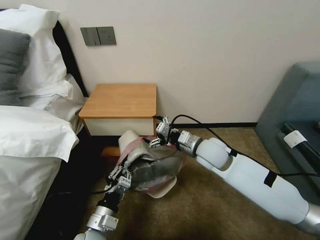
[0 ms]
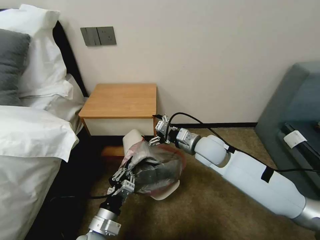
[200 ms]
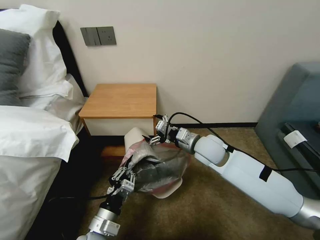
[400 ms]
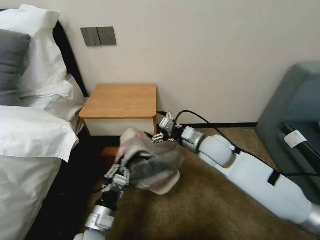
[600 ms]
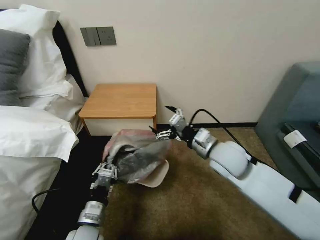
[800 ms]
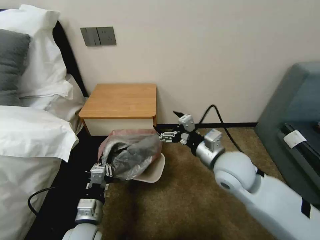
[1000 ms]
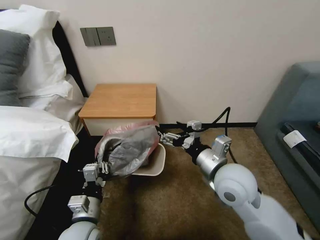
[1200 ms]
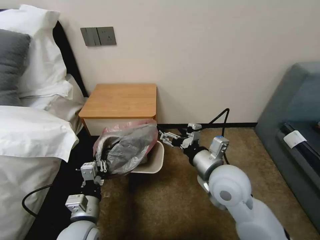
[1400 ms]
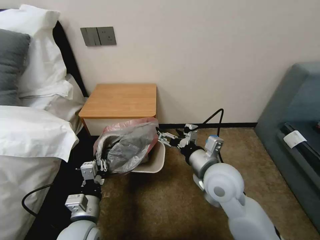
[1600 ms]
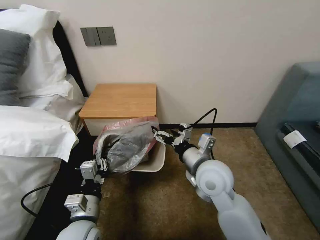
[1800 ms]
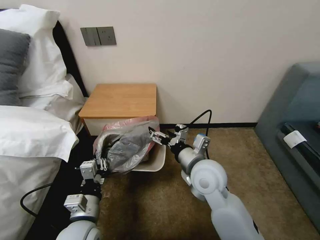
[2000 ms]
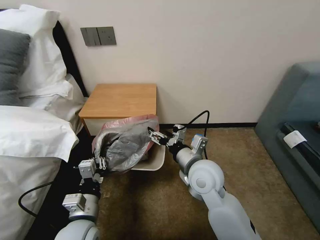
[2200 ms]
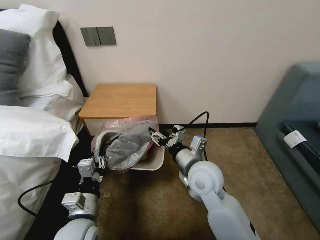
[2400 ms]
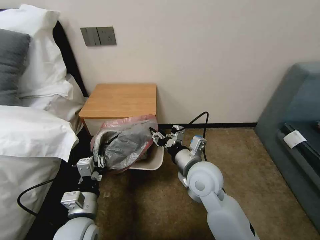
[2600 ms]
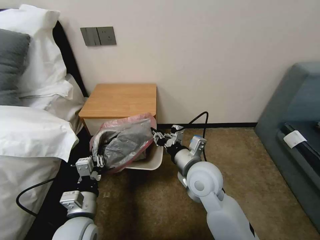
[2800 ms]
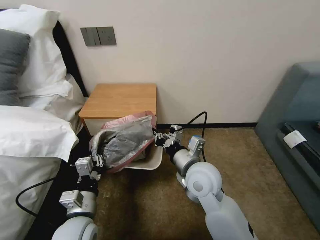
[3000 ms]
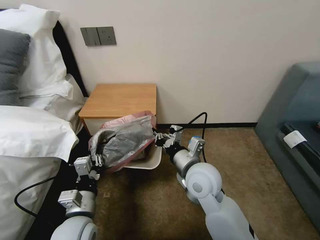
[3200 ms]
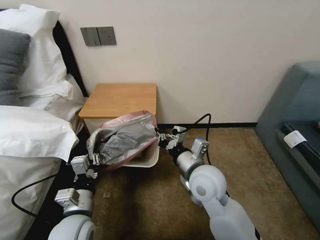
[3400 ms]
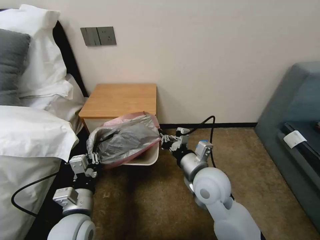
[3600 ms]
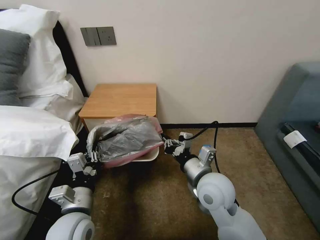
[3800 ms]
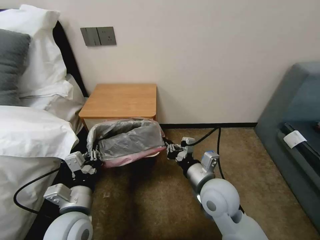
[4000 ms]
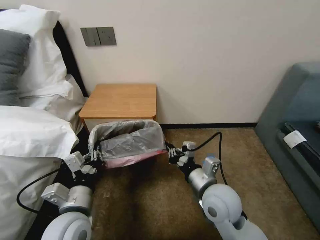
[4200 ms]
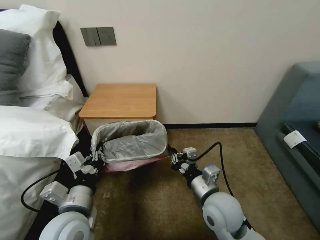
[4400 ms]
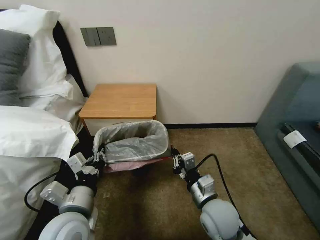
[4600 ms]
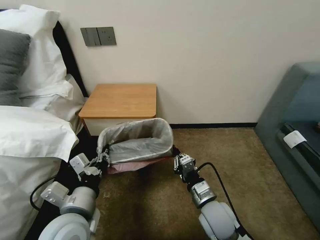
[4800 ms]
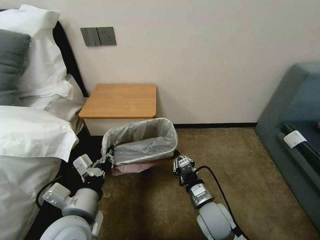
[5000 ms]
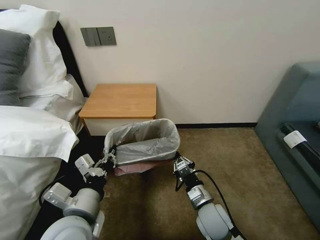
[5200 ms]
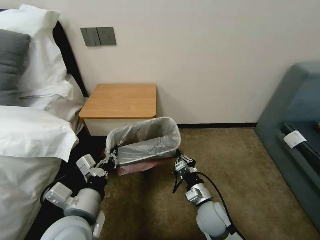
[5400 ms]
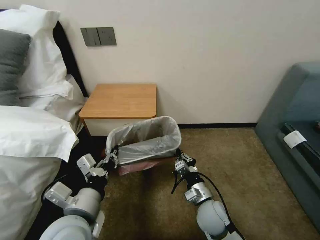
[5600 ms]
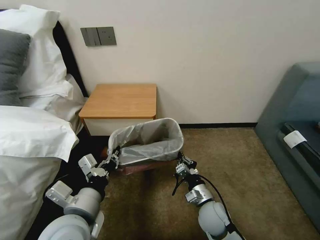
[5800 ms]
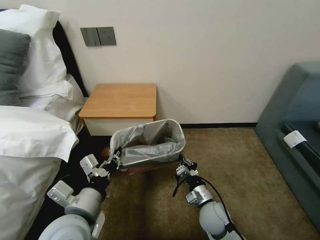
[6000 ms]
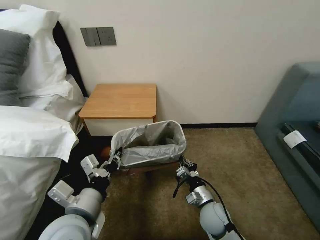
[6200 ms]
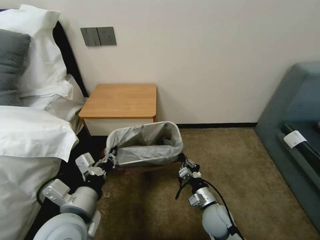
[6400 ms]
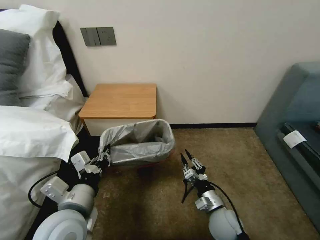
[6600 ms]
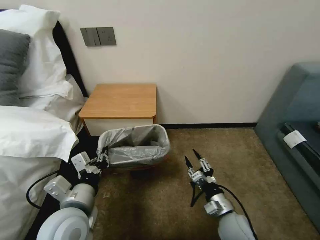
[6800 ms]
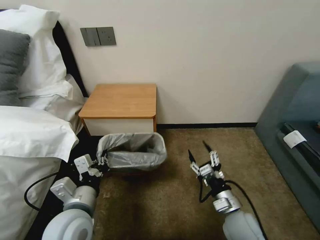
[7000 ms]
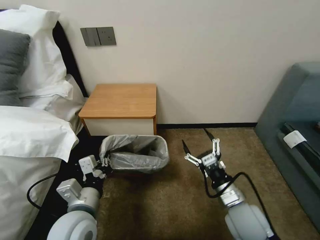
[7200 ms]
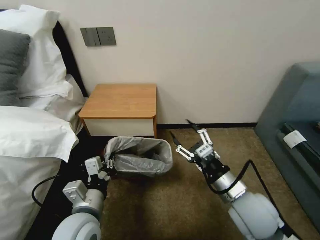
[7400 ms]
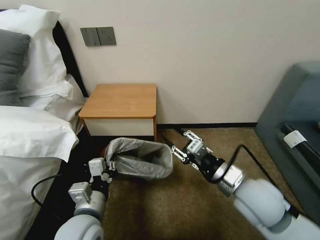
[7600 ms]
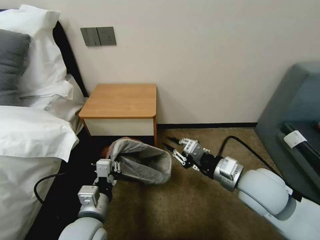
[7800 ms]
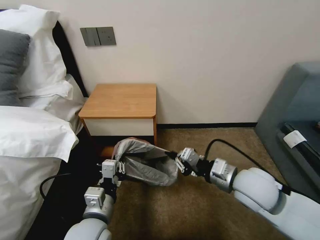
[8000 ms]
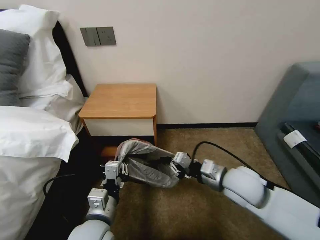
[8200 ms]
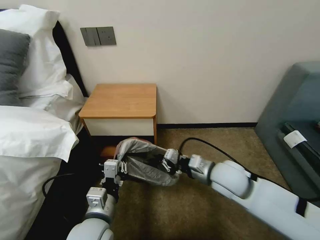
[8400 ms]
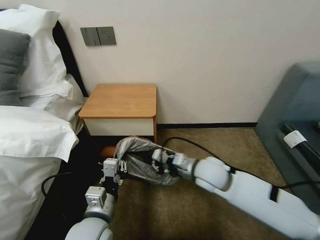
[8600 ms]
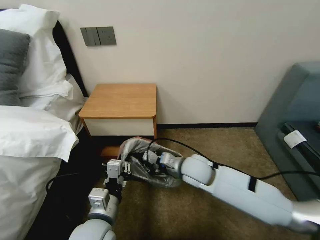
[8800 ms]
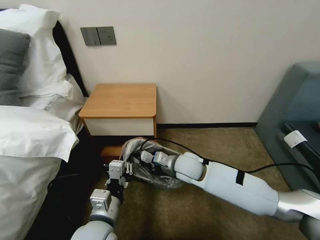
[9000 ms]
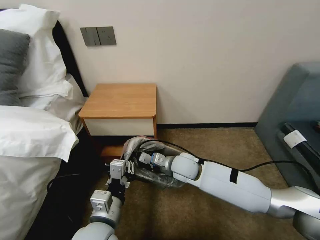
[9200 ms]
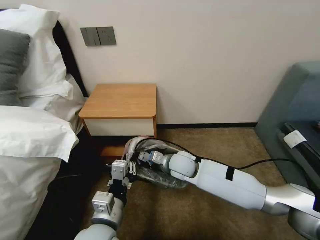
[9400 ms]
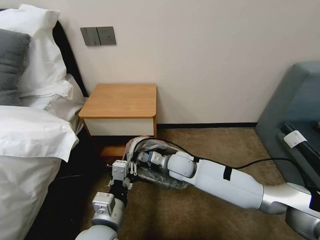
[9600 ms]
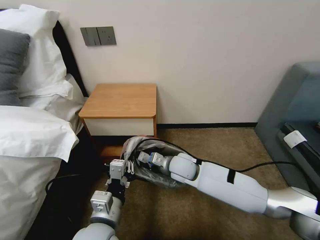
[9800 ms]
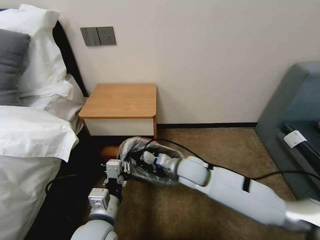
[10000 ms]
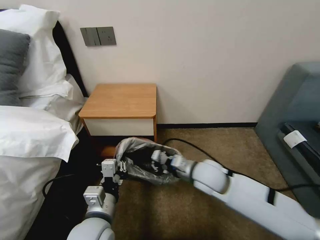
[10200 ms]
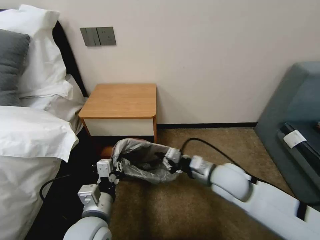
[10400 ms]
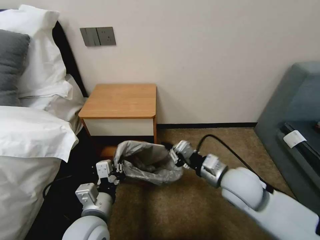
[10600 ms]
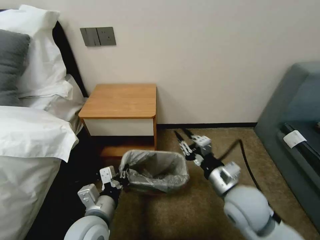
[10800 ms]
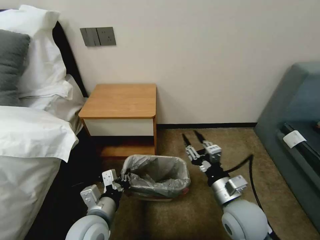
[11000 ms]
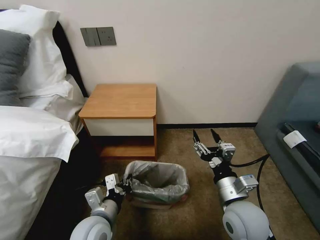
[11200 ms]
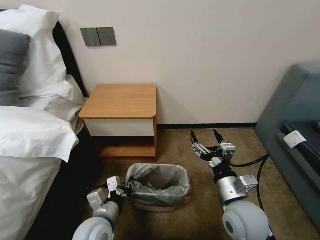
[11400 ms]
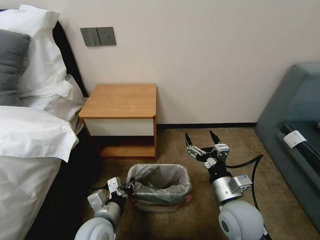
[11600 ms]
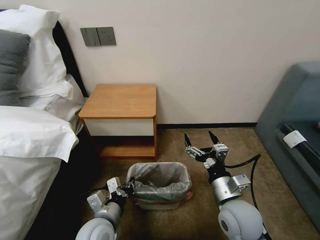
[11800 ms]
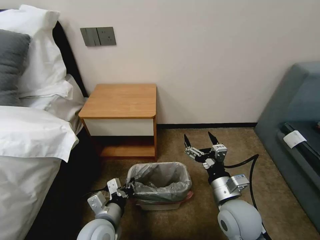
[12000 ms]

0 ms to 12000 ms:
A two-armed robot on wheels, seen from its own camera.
Task of the whole recording: Pick up the garbage bag from the table and place it over the trash can.
0 ms to 1600 ms: The right gripper moves backward, about 10 cm.
1600 ms to 3000 ms: The right gripper closes its fingers.
3000 ms to 4400 ms: The right gripper shifts roughly 10 cm backward and downward; the left gripper goes approximately 5 cm upward.
4400 ms to 6000 ms: The right gripper travels downward by approximately 15 cm.
6000 ms to 7600 ms: The right gripper moves upward, approximately 20 cm, and opens up. The left gripper goes some 5 cm downward.
7600 ms to 9000 ms: The right gripper moves forward, to the left and downward, roughly 20 cm, and closes.
9000 ms to 10400 ms: The right gripper heads to the right and backward, covering roughly 10 cm.
10400 ms to 12000 ms: The right gripper moves backward, roughly 10 cm, and opens. The left gripper goes some 5 cm downward.

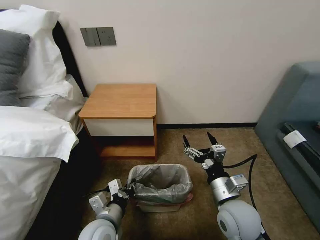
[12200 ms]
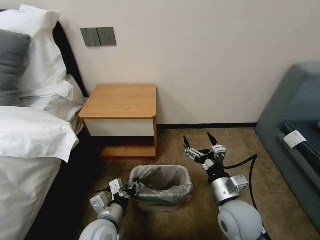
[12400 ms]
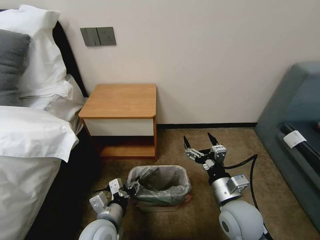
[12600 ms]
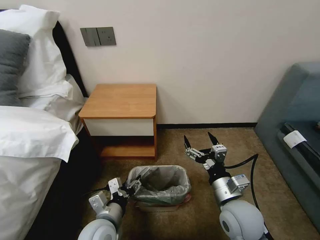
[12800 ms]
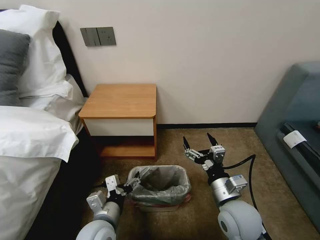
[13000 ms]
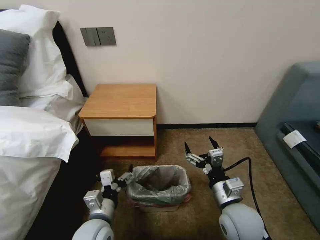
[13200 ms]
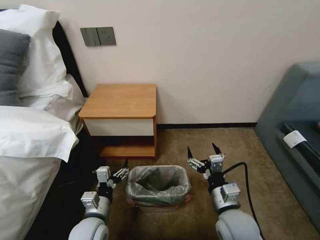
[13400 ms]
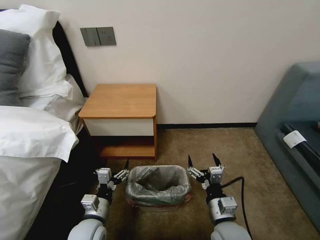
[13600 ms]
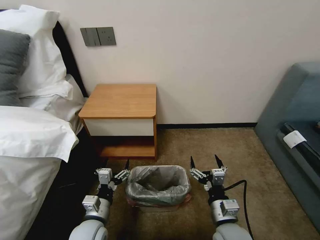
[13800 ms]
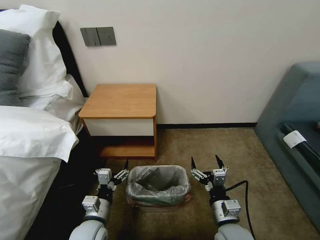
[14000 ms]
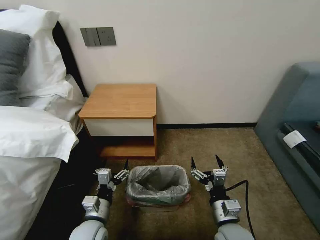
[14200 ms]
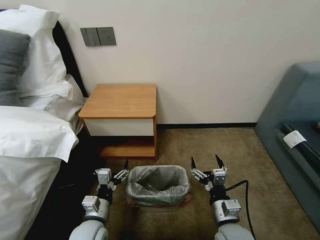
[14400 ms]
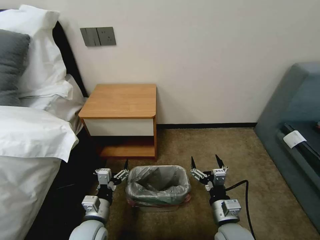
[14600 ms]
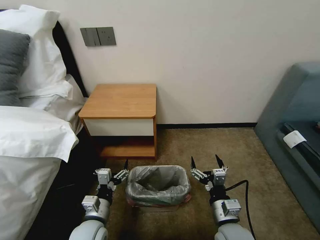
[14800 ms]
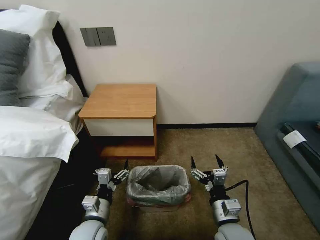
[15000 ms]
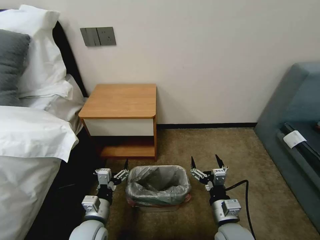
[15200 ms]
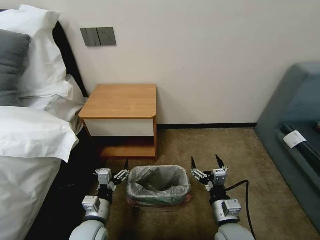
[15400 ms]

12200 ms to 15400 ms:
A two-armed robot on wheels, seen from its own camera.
Task of the whole recording: Pick up the garbage bag from the table and place it over the trash can.
12200 ms to 13800 ms: The left gripper shifts by approximately 5 cm, and opens its fingers; the right gripper heads downward, covering some 10 cm.
13800 ms to 15400 ms: Both grippers stay about where they are.

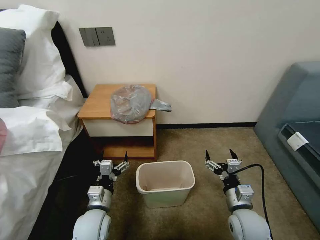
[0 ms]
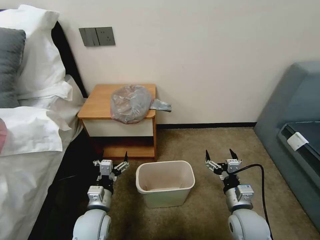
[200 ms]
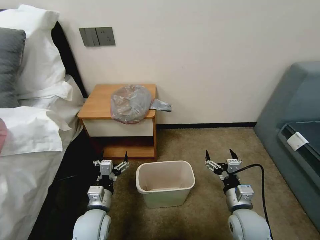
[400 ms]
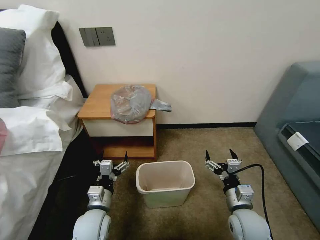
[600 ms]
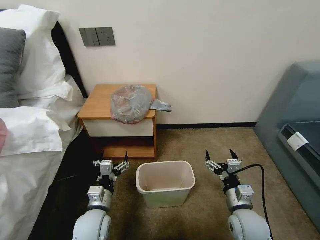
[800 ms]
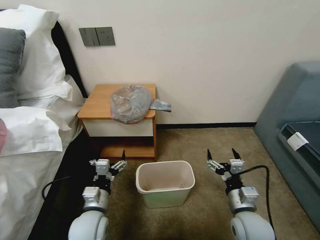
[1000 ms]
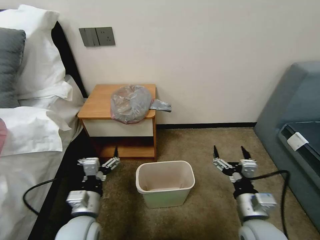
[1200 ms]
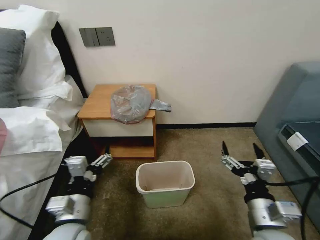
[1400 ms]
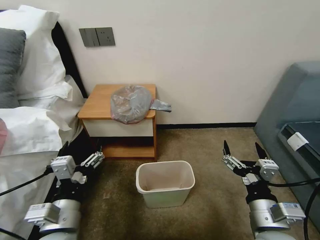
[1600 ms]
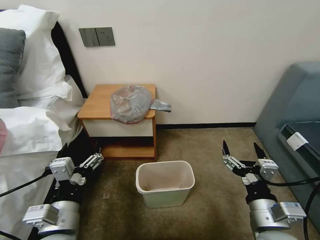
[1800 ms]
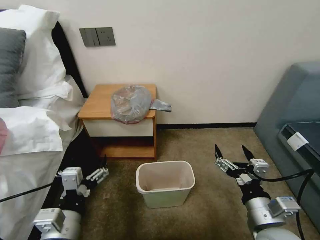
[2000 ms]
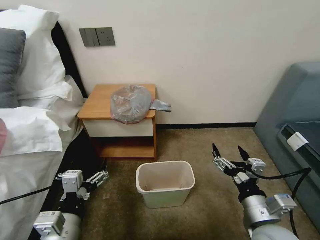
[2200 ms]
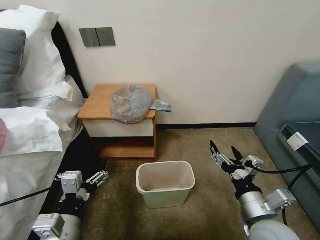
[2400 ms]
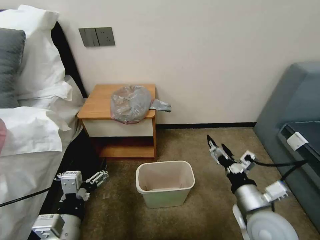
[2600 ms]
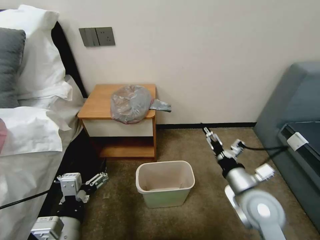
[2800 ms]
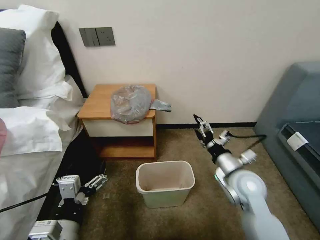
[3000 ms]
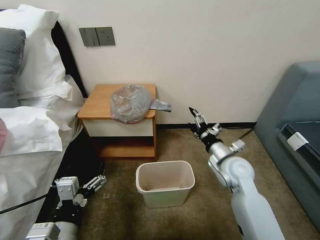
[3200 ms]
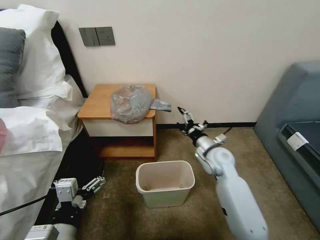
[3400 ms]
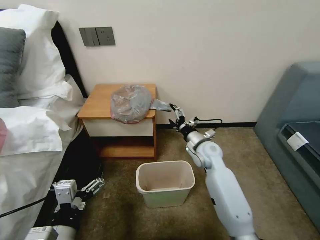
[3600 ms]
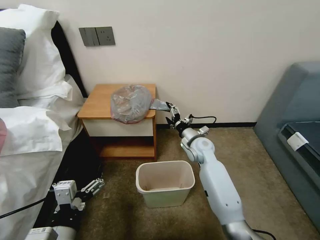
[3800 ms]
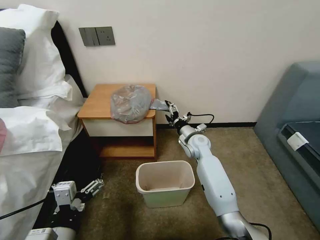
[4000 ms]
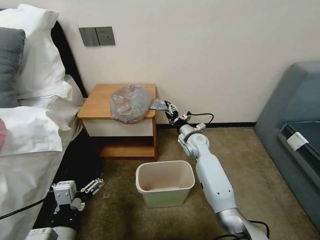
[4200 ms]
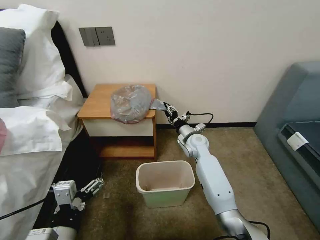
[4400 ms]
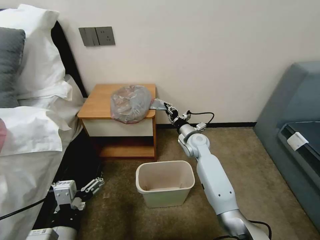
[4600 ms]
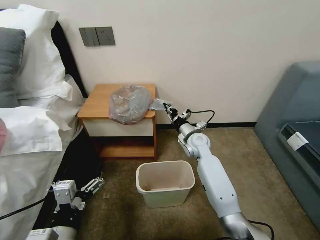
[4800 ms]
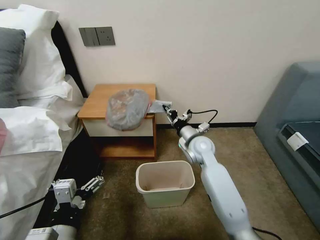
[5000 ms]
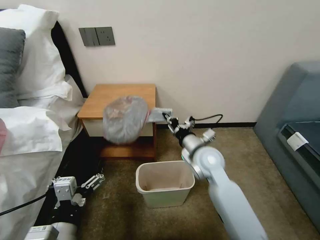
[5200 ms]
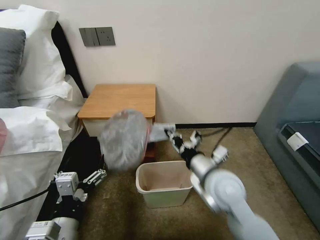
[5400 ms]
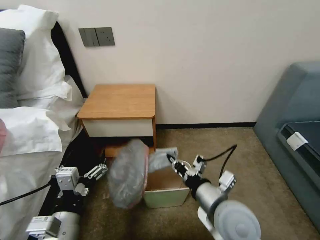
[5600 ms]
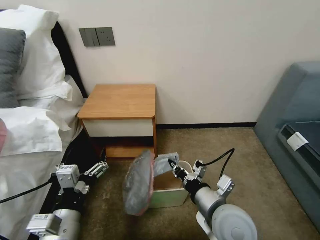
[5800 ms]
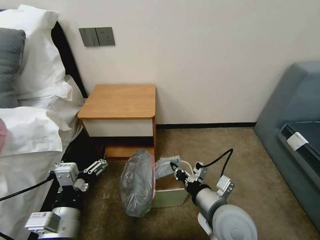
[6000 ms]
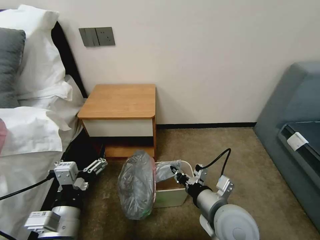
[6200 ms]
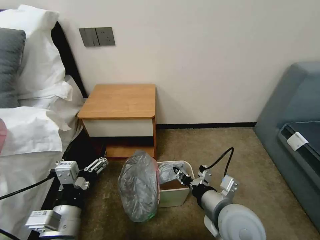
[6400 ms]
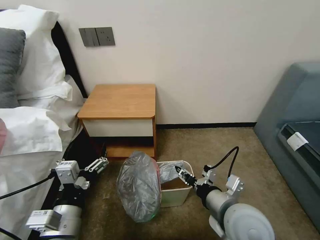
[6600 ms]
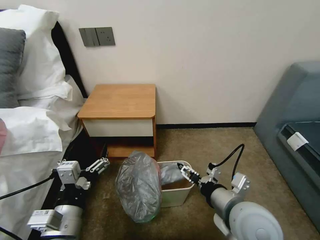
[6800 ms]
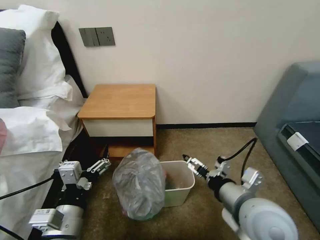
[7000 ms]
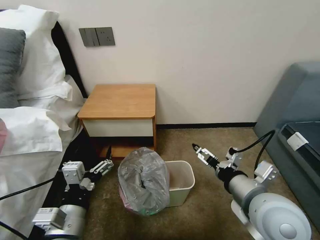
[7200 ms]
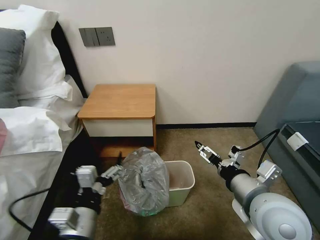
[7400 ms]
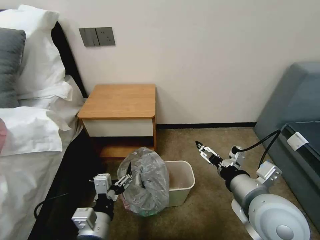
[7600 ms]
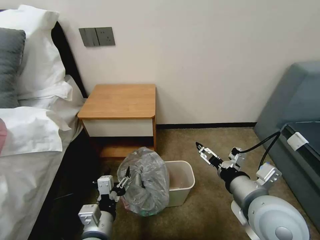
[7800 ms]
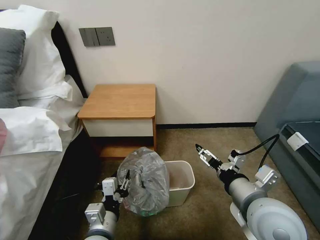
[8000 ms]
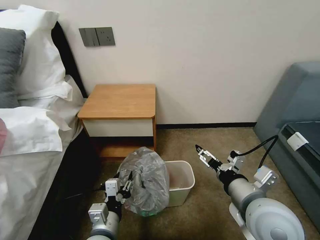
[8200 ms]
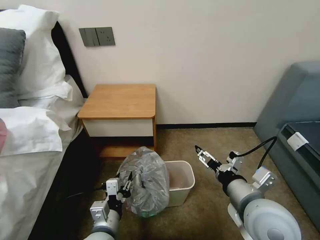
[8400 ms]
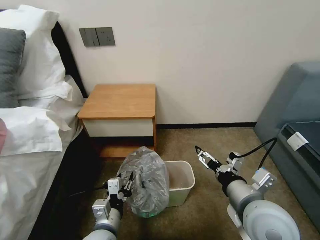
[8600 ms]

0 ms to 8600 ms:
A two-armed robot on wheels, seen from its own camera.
Task of the whole recording: Pick up the garbage bag from the table and place it over the trash can.
1400 ms to 2800 ms: The right gripper goes approximately 5 cm forward. The left gripper heads backward, covering some 5 cm.
2800 ms to 4400 ms: The right gripper heads forward, covering some 30 cm, and closes its fingers.
4400 ms to 5800 ms: The right gripper goes some 30 cm backward, and closes up.
5800 ms to 7200 ms: The right gripper heads upward and to the right, covering approximately 10 cm, and opens.
7200 ms to 8600 ms: The left gripper travels downward and to the right by some 10 cm, and closes its fingers.
